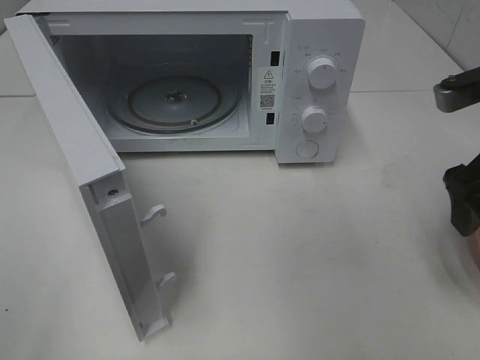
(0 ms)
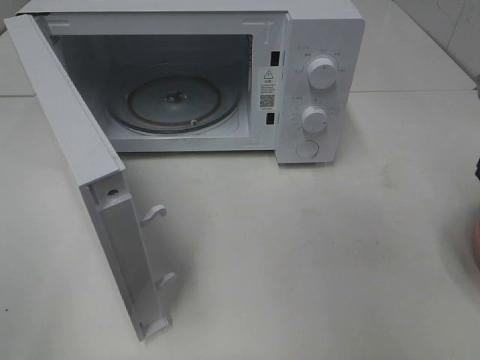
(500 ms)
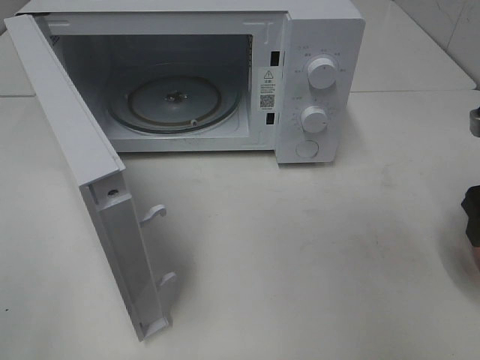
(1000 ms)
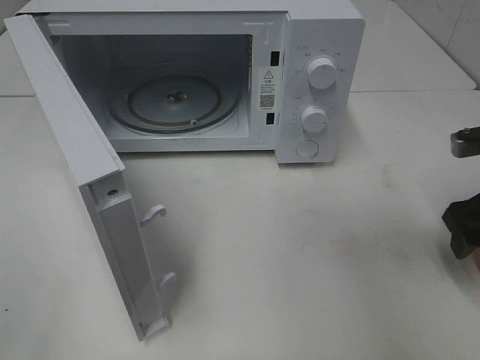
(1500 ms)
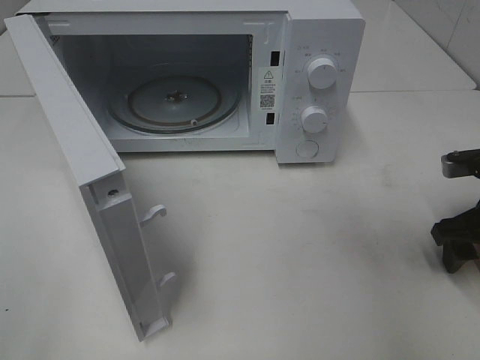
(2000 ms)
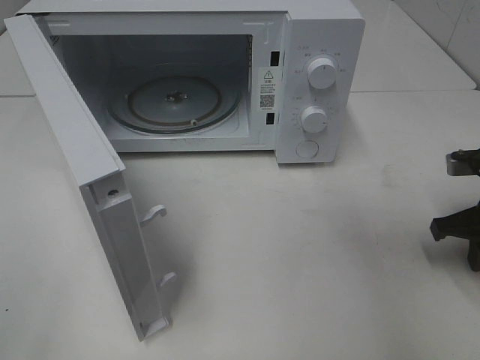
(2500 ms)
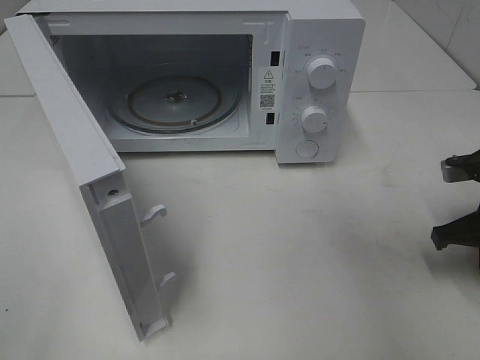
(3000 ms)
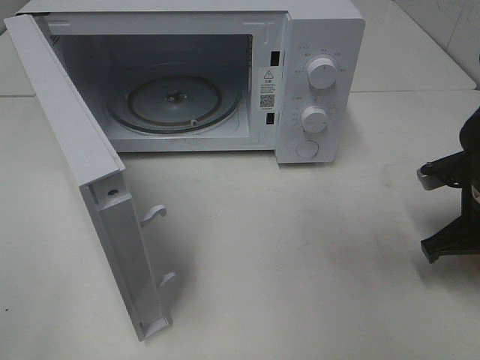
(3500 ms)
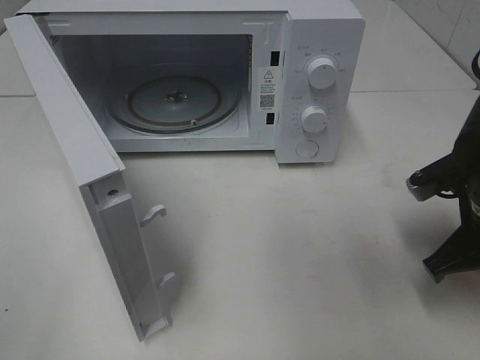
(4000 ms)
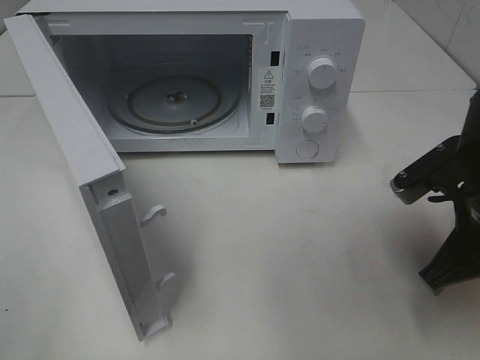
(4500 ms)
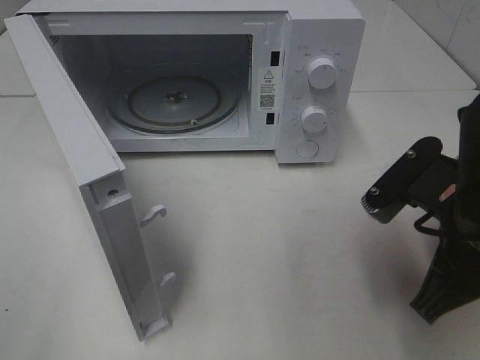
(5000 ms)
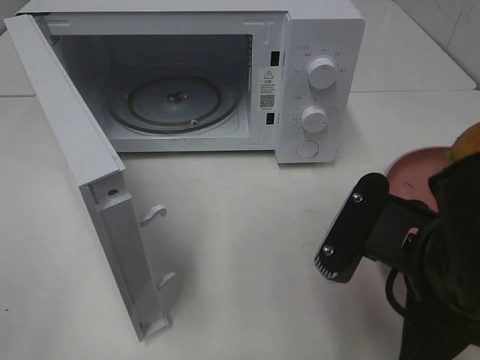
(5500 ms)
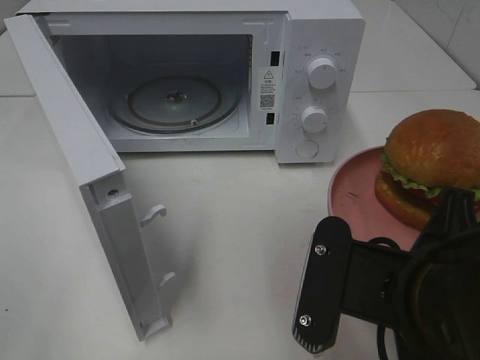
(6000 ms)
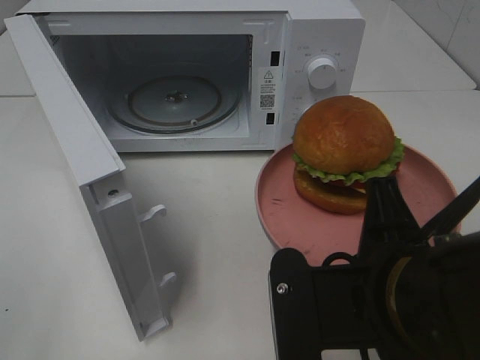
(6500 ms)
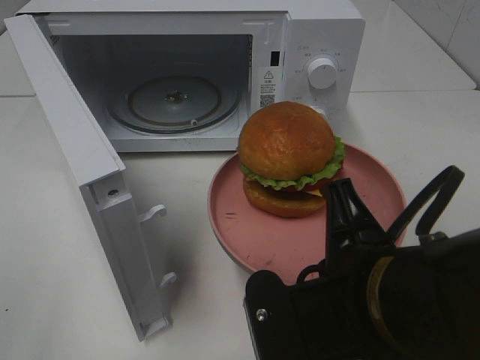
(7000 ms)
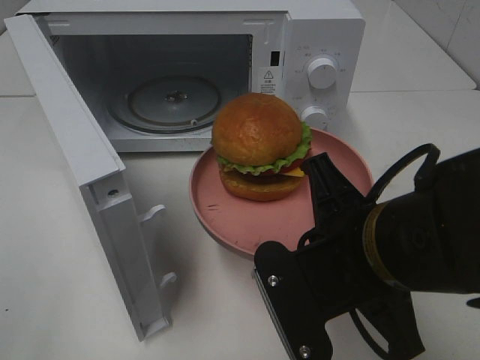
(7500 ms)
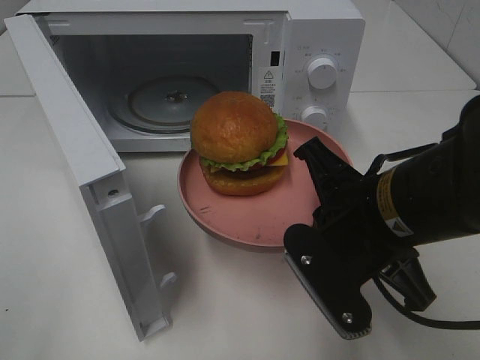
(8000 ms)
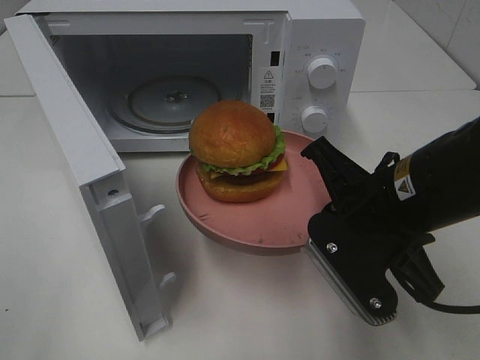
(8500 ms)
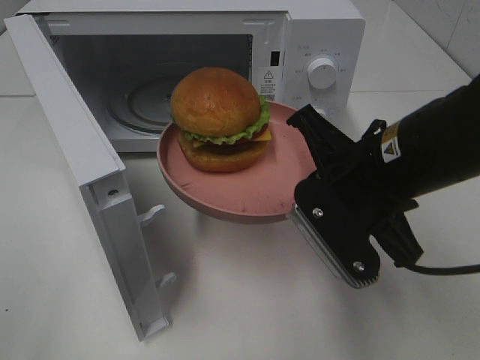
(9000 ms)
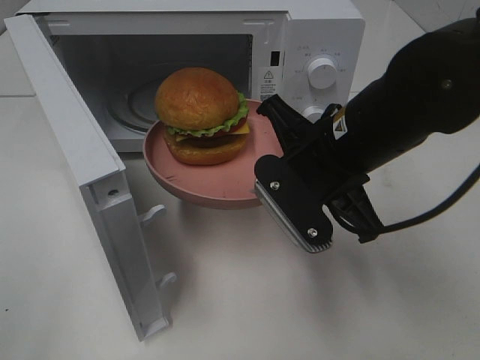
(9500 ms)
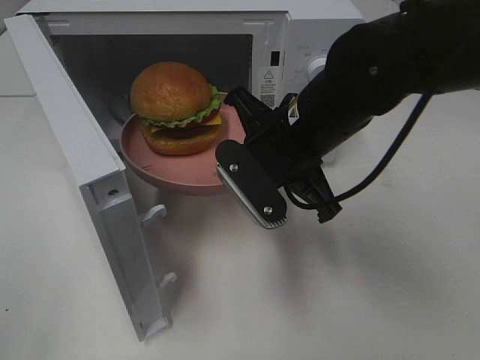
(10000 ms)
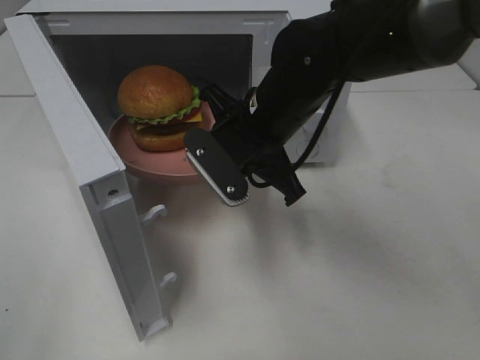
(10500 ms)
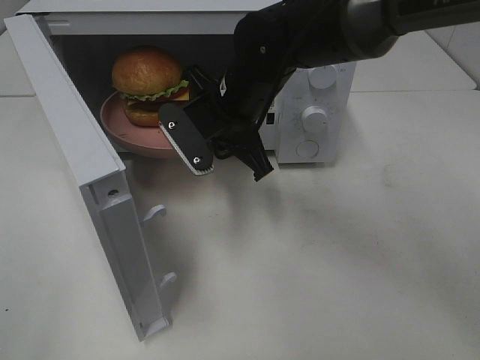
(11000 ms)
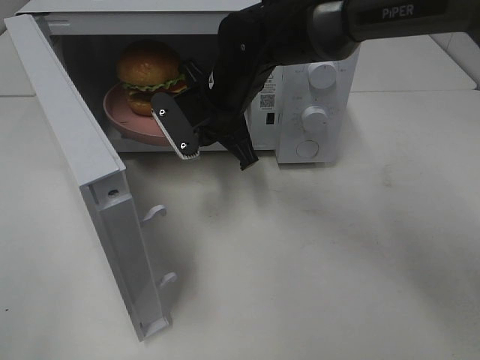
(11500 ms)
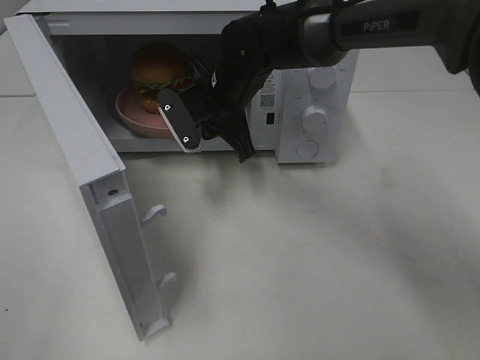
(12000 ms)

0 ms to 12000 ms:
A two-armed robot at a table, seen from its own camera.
Task of the whole recording: Heat the burger.
Step, 0 ms to 3000 ms: Right hand: grab the plate with the hamburger.
0 ms to 2000 ms: The right gripper shifts some 15 cm downward and to the right.
2000 ms to 4000 ms: The right gripper goes approximately 5 cm to the left, and closes.
4000 ms to 6000 ms: The right gripper heads backward, to the left and upward, covering approximately 20 cm.
6000 ms to 8000 ms: The right gripper heads forward, covering approximately 10 cm.
8000 ms to 10000 ms: The right gripper moves forward and to the left, roughly 10 cm.
10000 ms to 12000 ms: The right gripper goes some 15 cm forward and to the left.

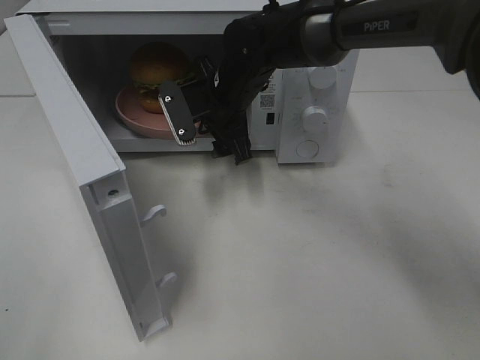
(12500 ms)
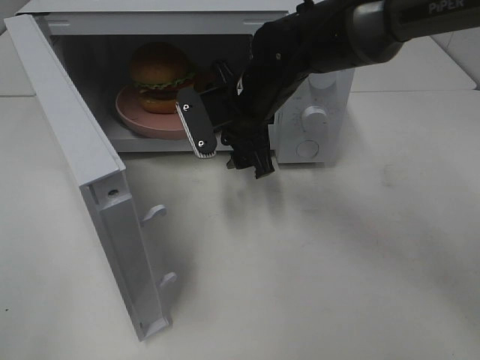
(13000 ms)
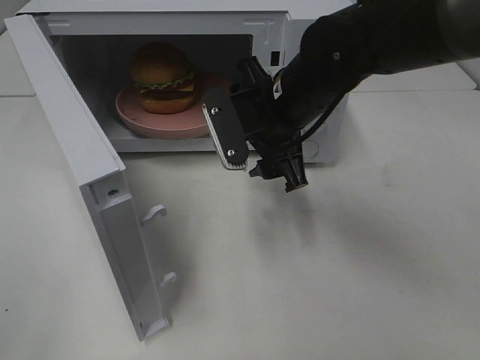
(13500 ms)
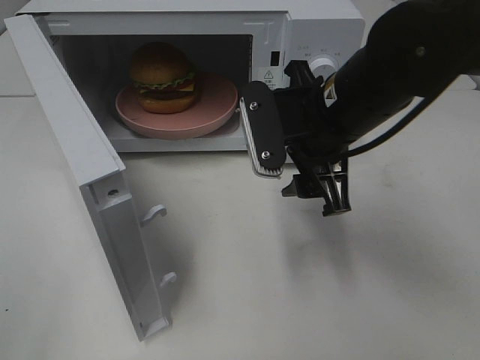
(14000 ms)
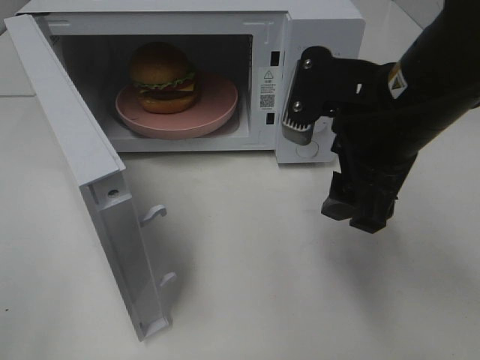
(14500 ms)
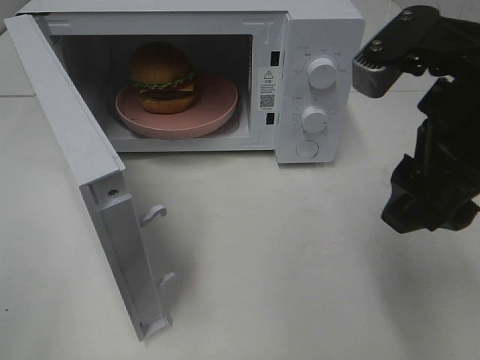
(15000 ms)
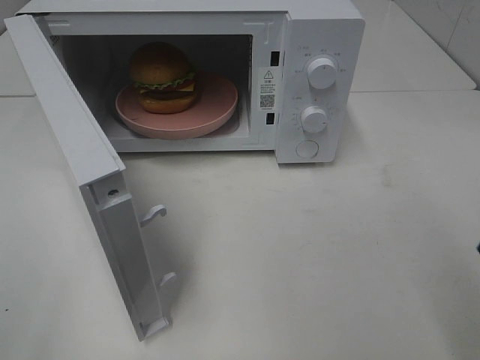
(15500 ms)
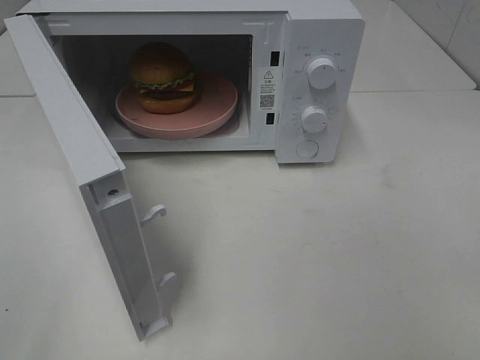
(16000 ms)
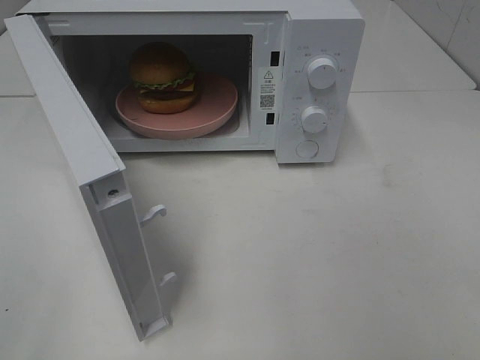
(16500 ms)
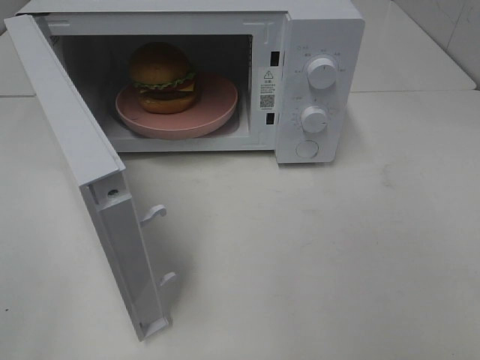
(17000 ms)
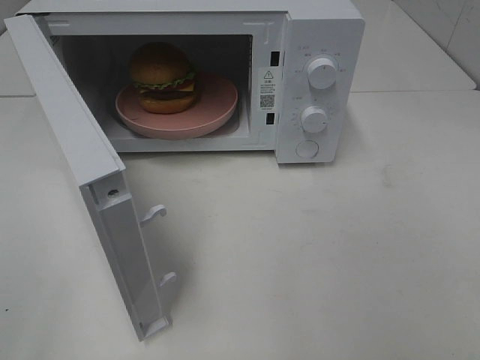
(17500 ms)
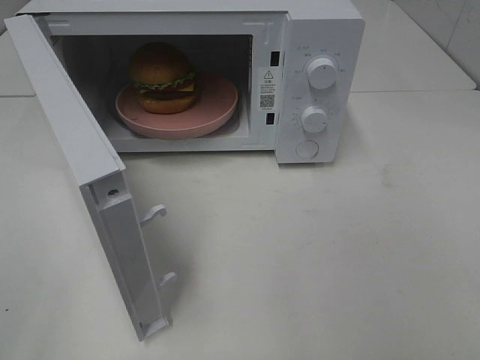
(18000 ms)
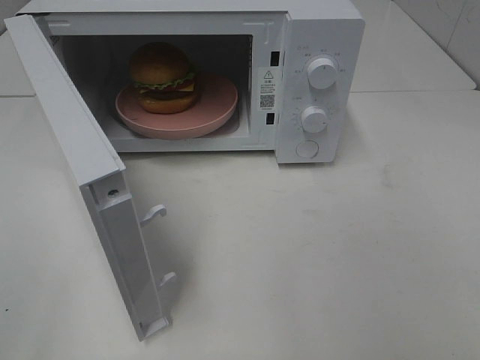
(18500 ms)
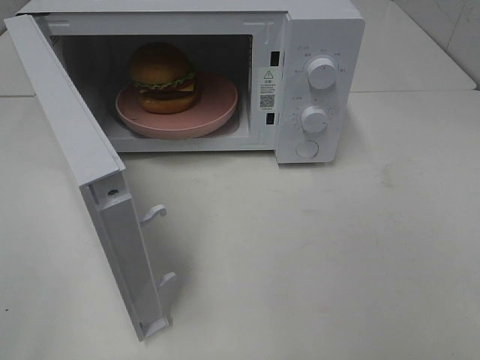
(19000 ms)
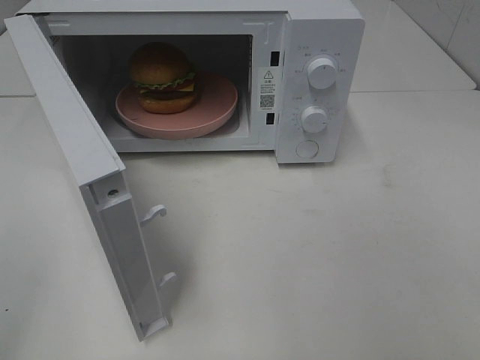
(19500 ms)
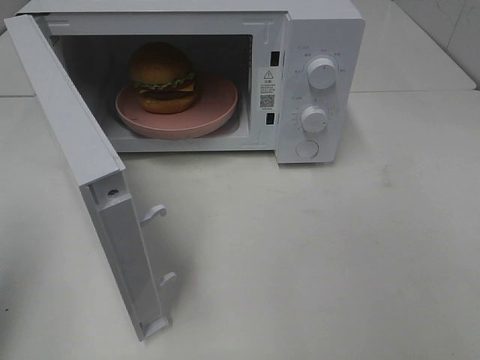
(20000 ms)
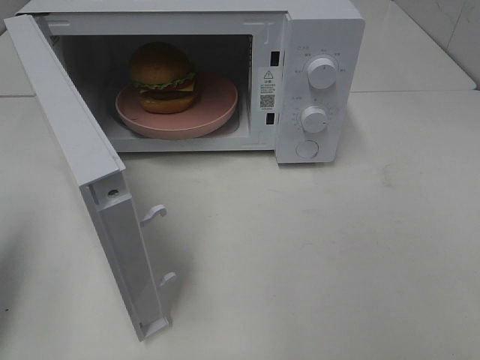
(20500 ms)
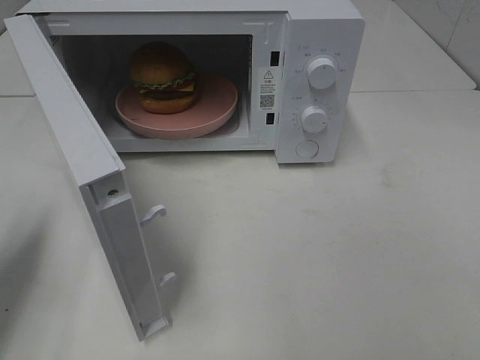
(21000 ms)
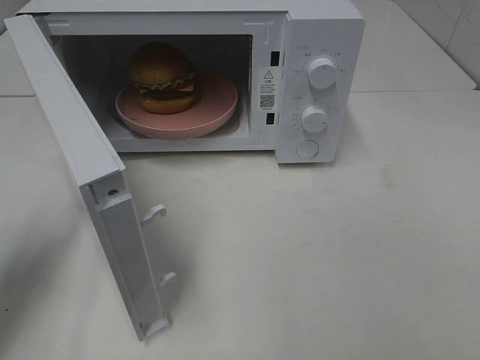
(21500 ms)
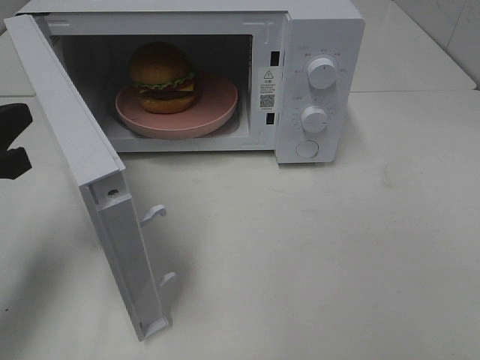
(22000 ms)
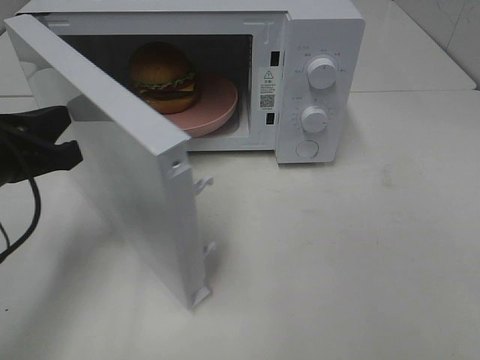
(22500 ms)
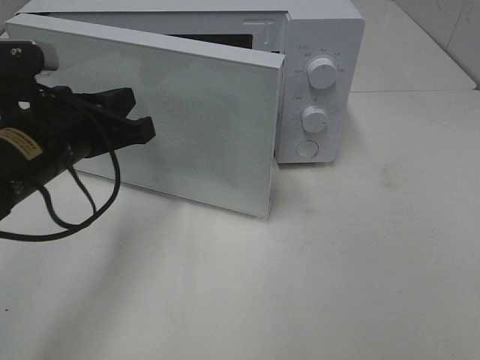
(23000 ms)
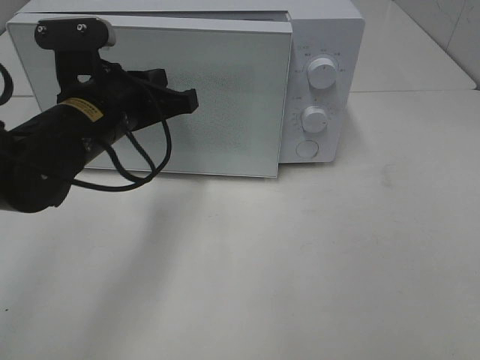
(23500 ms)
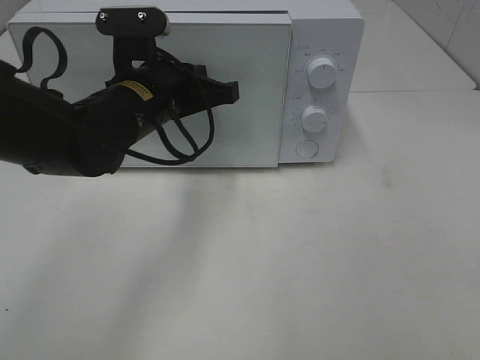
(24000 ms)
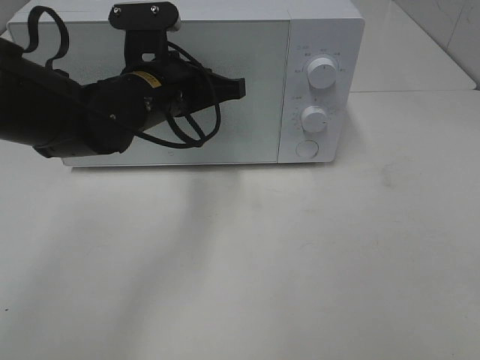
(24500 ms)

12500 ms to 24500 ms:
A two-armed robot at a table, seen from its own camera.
Task of the whole recording: Heat the burger.
12500 ms to 14500 ms: The right gripper moves backward, to the right and upward, approximately 25 cm.
14500 ms to 16500 ms: The right gripper goes approximately 30 cm backward and to the right.
18500 ms to 20500 ms: The left gripper heads forward, covering roughly 15 cm, and closes its fingers.
20500 ms to 22500 ms: The left gripper heads to the right, forward and downward, covering some 15 cm.
22500 ms to 24500 ms: The left gripper travels to the right and forward by roughly 20 cm.

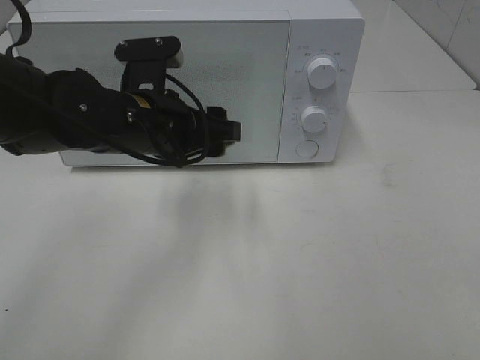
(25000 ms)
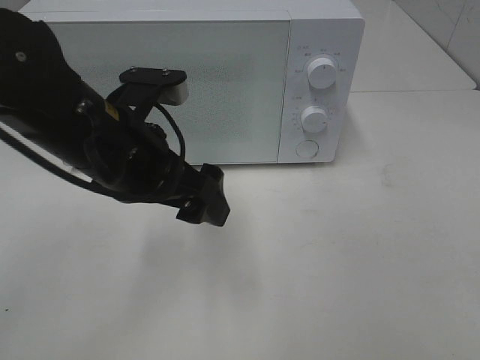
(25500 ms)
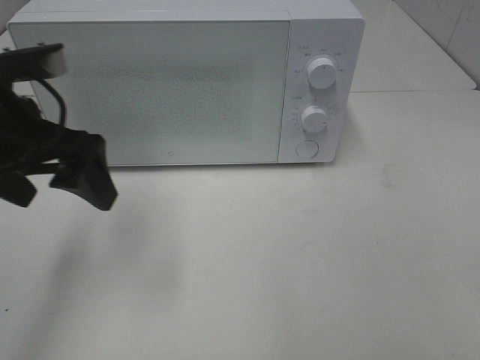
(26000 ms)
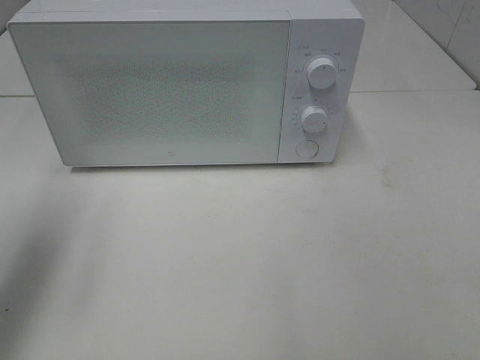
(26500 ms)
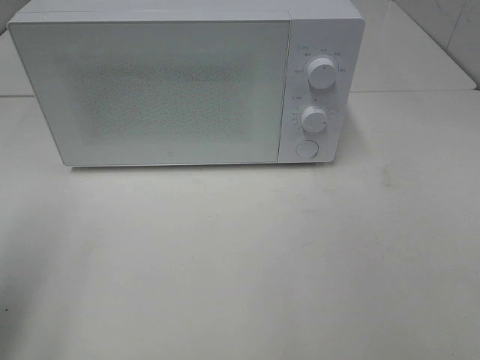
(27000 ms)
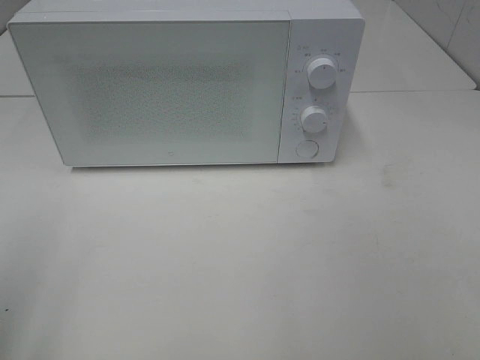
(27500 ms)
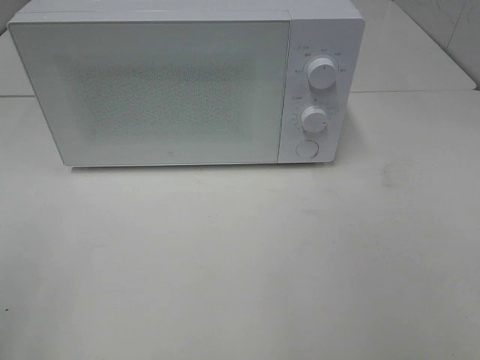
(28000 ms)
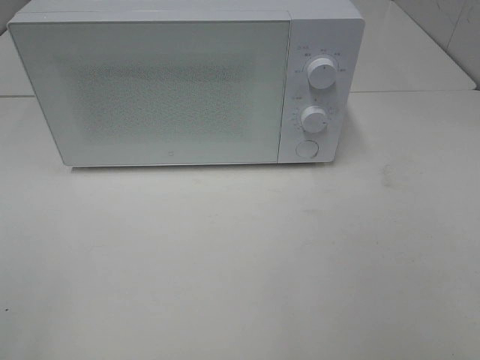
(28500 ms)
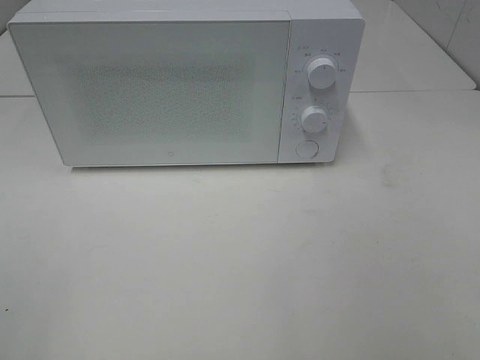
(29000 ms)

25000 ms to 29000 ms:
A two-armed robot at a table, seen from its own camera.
Task of the whole recording: Heat the burger.
25000 ms to 27000 ms: The left gripper shifts some 30 cm to the left, backward and upward.
27000 ms to 29000 ms: The left gripper heads backward, covering some 15 cm.
